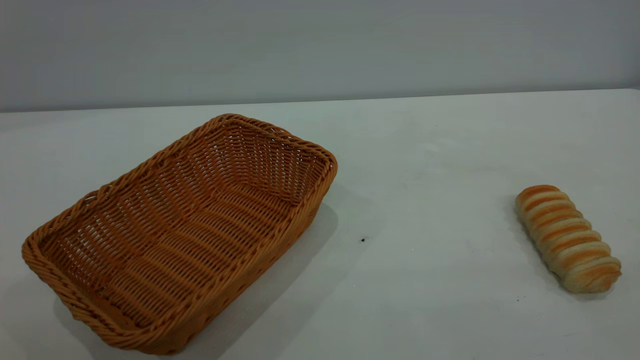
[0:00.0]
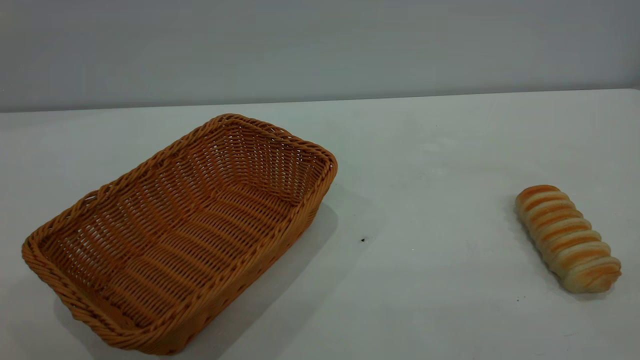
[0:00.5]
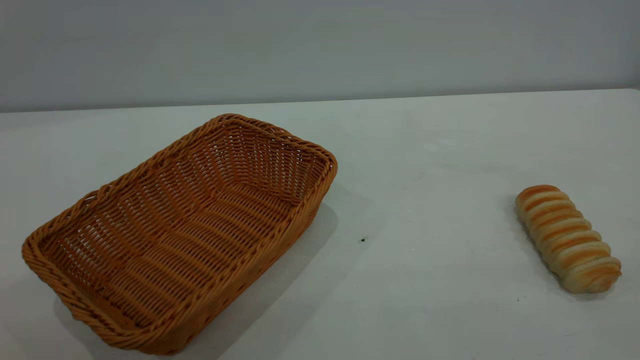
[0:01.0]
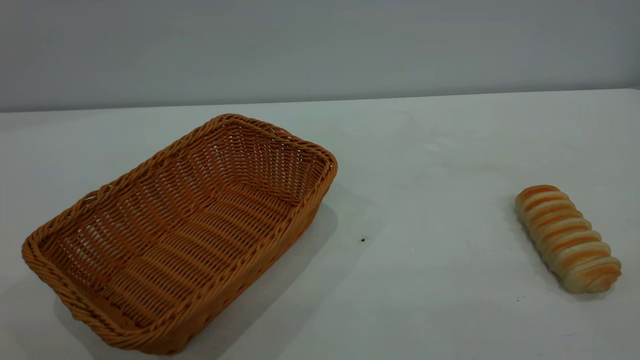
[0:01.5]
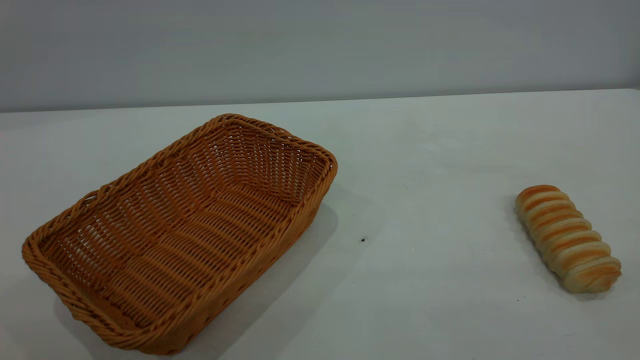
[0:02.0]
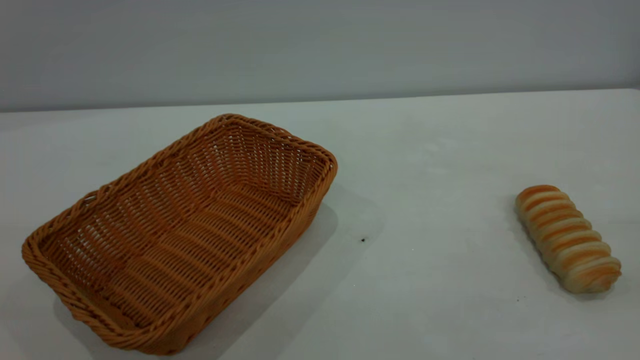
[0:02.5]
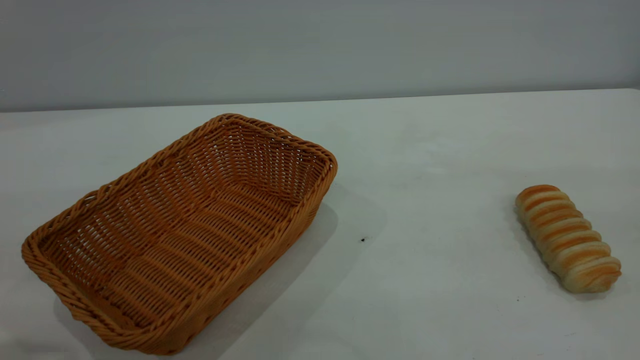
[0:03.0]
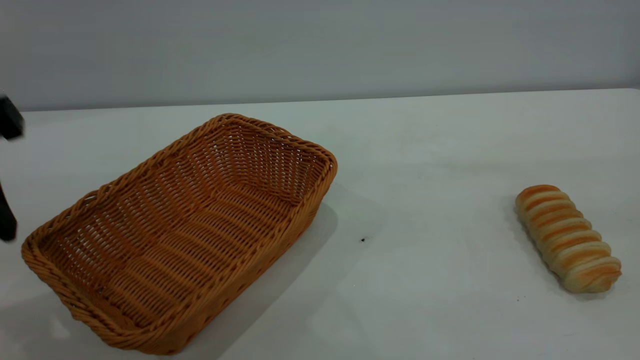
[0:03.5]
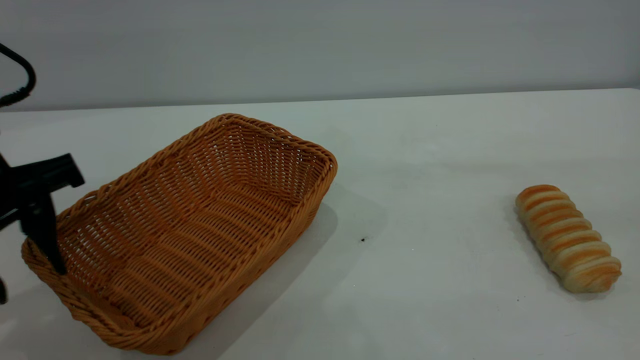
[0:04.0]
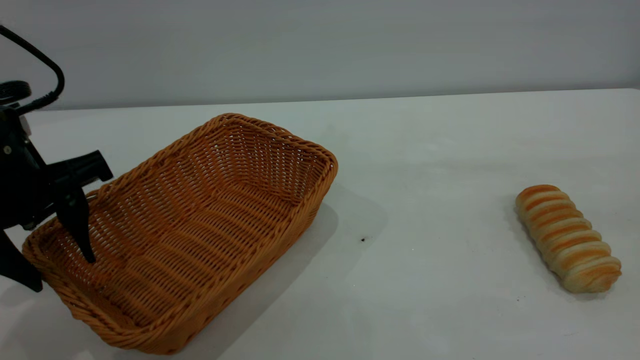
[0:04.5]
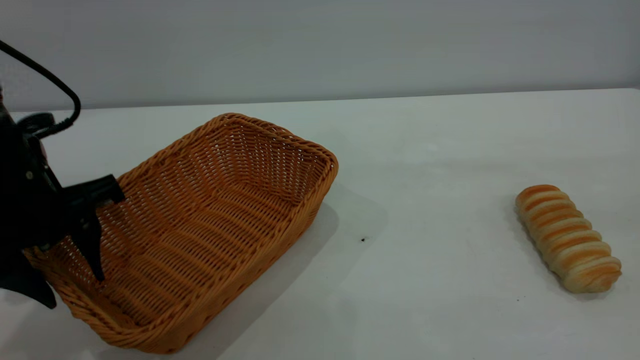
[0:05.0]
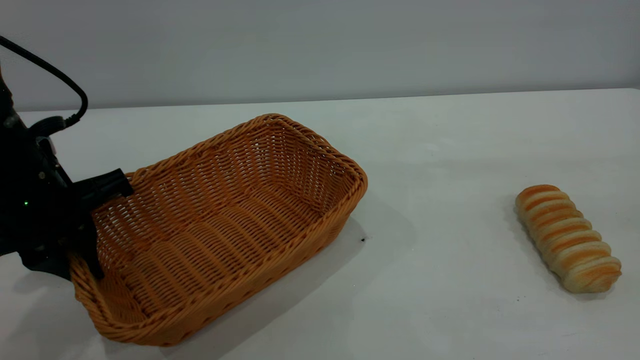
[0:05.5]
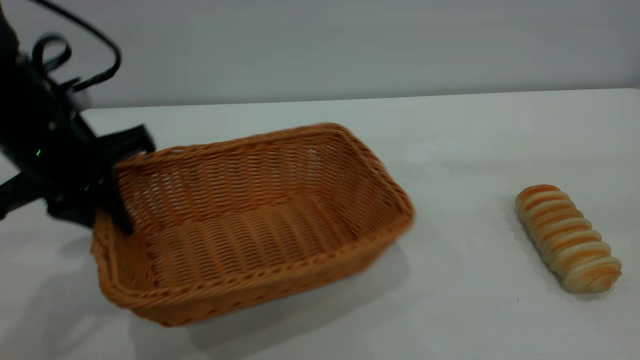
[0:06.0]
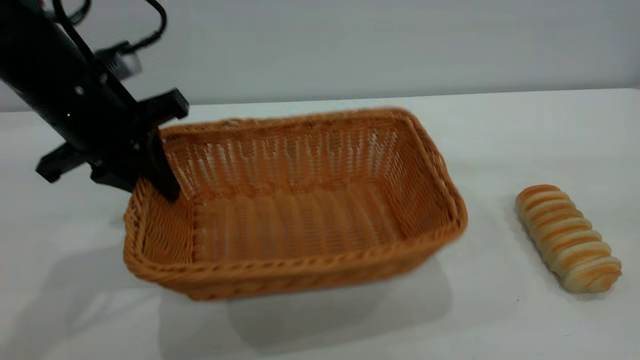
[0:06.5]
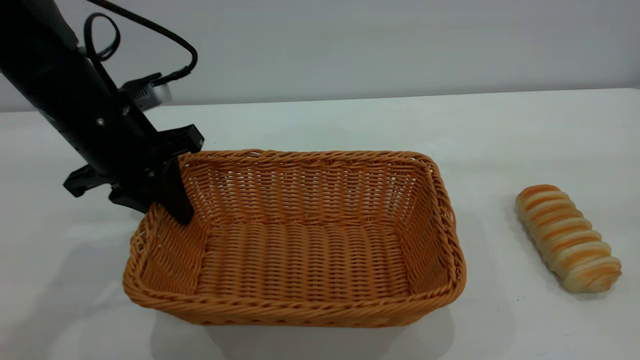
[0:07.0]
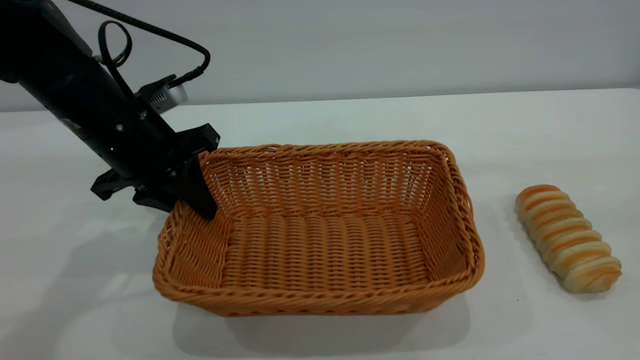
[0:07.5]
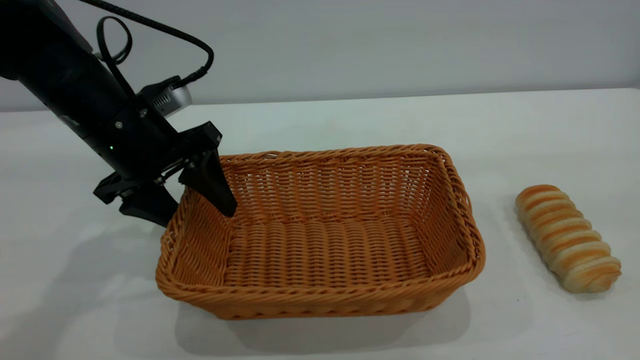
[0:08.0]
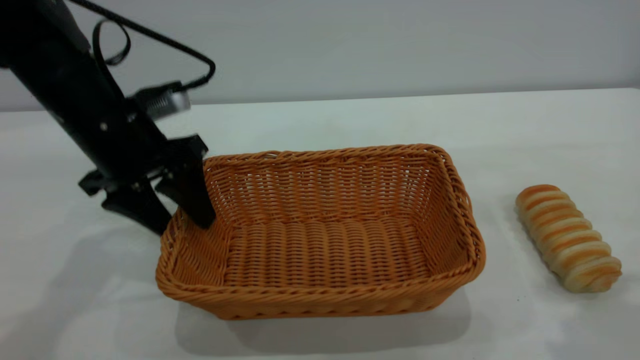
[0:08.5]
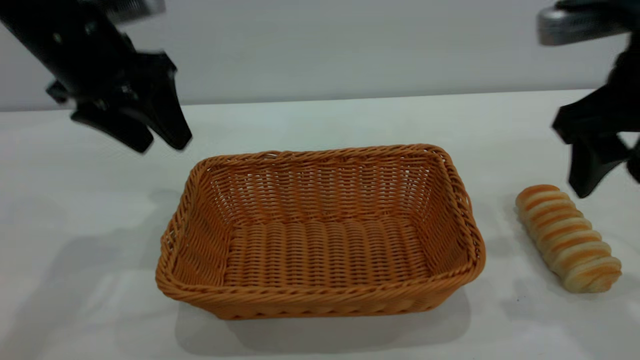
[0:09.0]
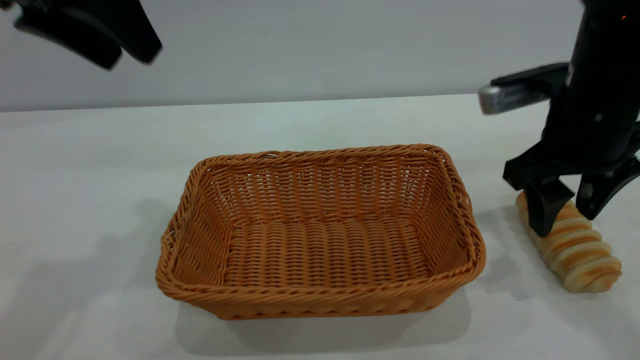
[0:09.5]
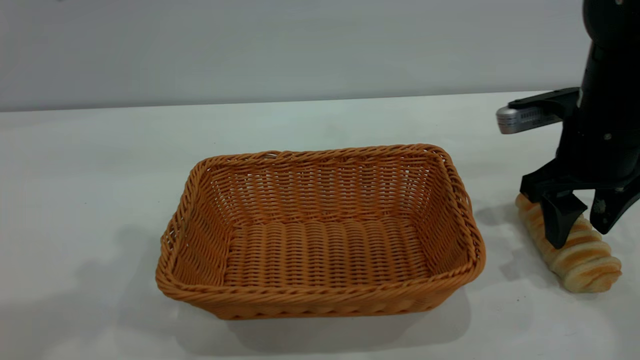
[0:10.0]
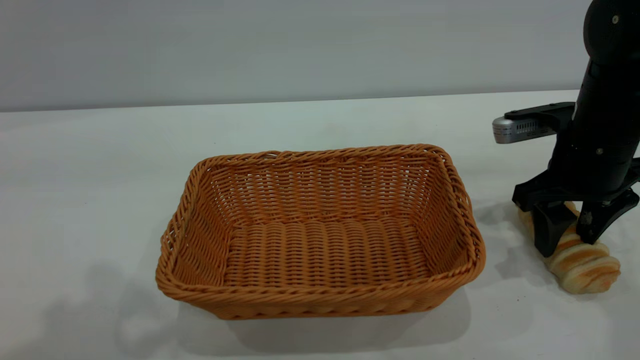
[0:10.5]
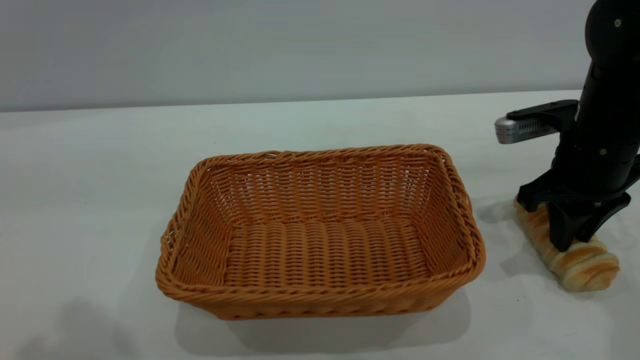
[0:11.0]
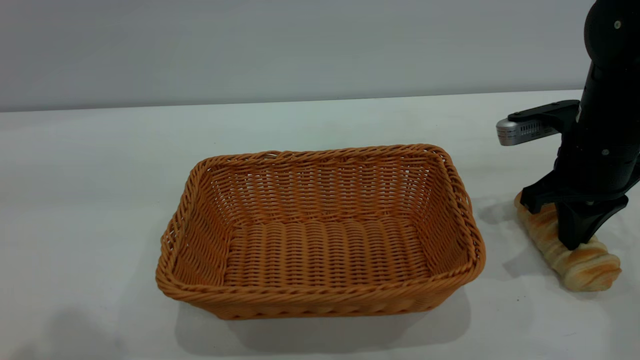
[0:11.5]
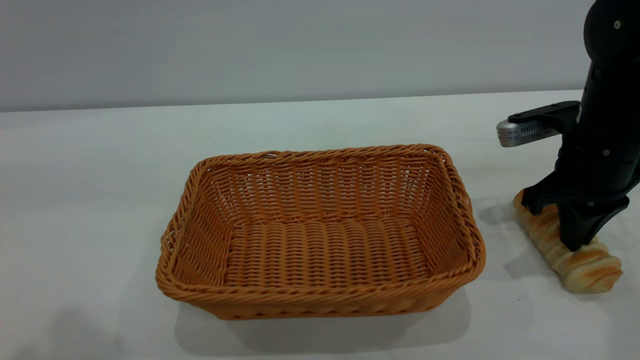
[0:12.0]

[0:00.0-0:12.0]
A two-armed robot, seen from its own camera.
Task of the whole recording: One hand grasps the yellow basket and places it in the middle of the table, while the other hand picks up the long bread and puts it into the yellow basket.
Step, 0:00.0 to 0:08.5: Move the basket to the center of view.
0:02.0 to 0:04.0: The left gripper goes about 30 cm forward and downward.
0:04.0 to 0:06.0: The left gripper heads forward, covering approximately 5 cm, and closes up.
0:06.0 to 0:08.0: The left gripper changes place by approximately 5 cm, and opens its fingers.
0:08.0 to 0:10.0: The left gripper heads upward, covering approximately 25 cm, while the right gripper heads downward and forward, covering approximately 30 cm.
0:10.0 to 0:12.0: The right gripper closes its fingers.

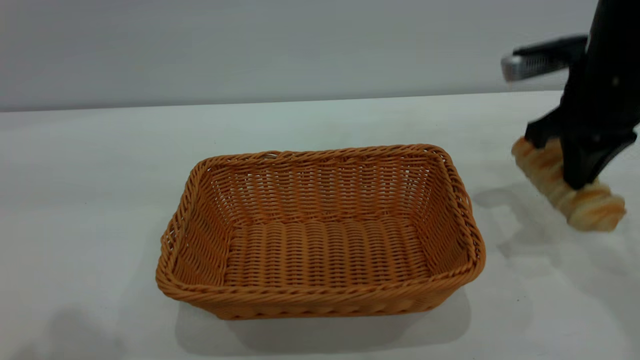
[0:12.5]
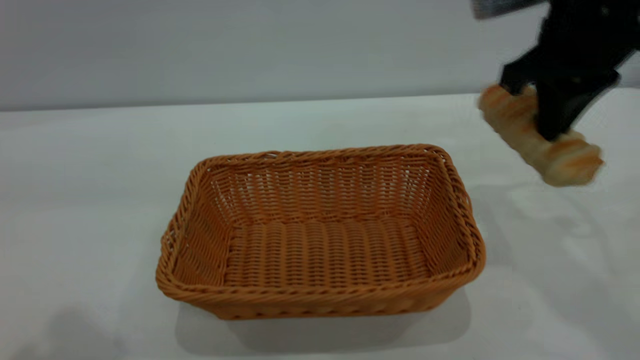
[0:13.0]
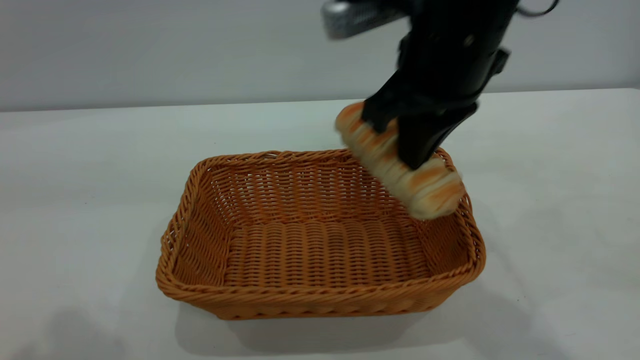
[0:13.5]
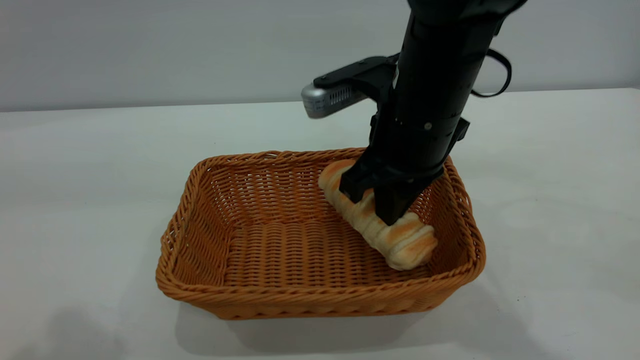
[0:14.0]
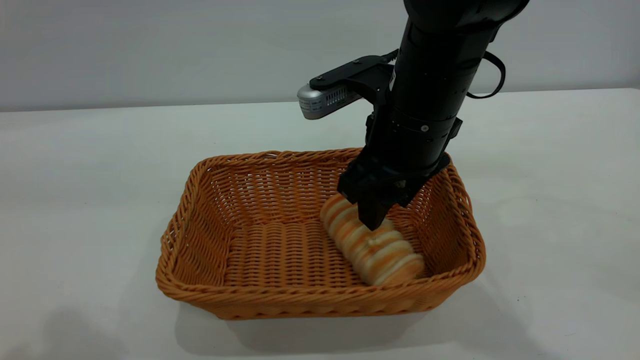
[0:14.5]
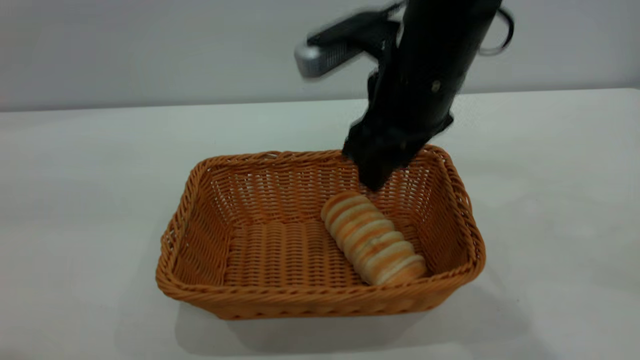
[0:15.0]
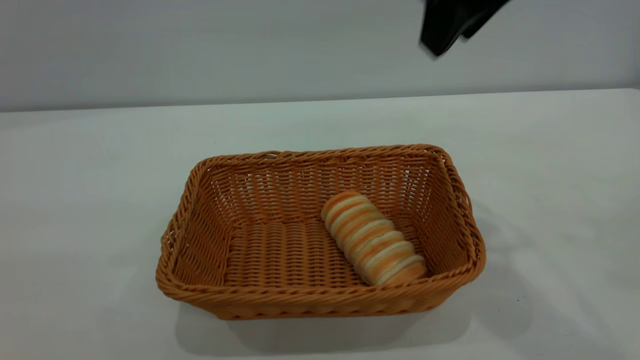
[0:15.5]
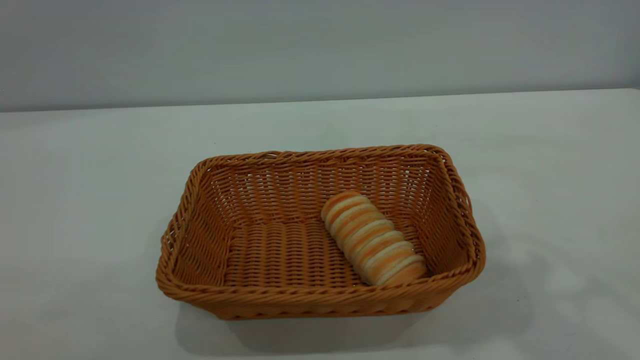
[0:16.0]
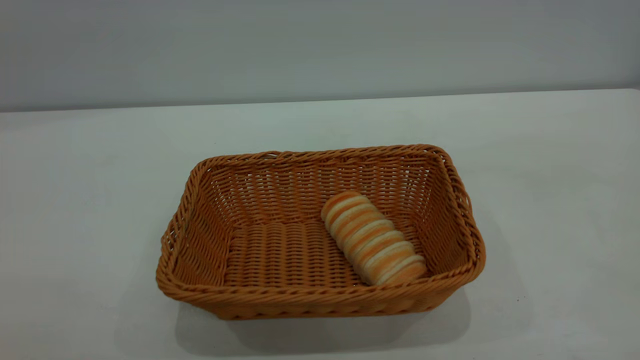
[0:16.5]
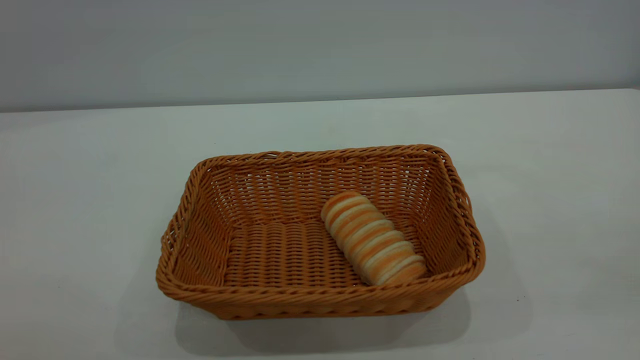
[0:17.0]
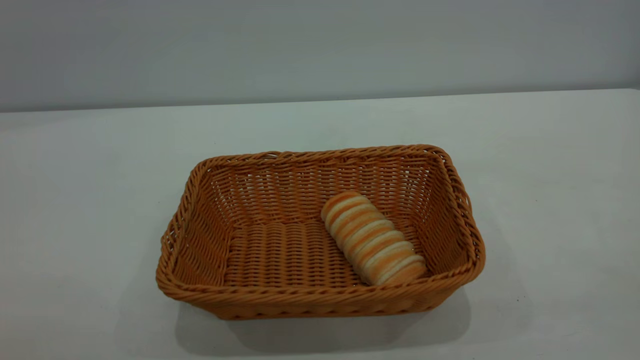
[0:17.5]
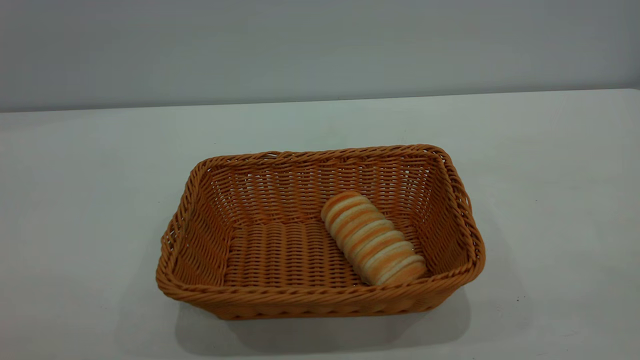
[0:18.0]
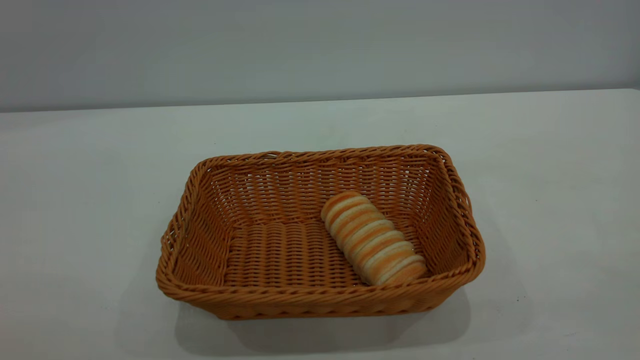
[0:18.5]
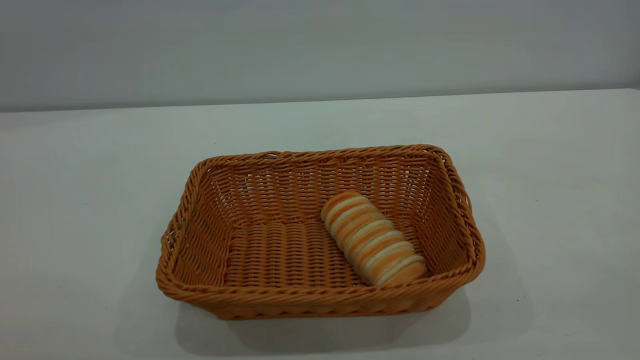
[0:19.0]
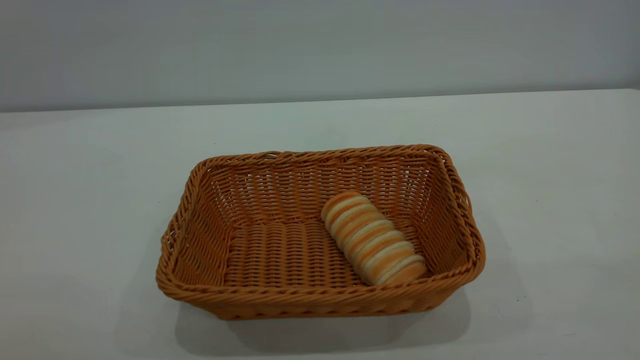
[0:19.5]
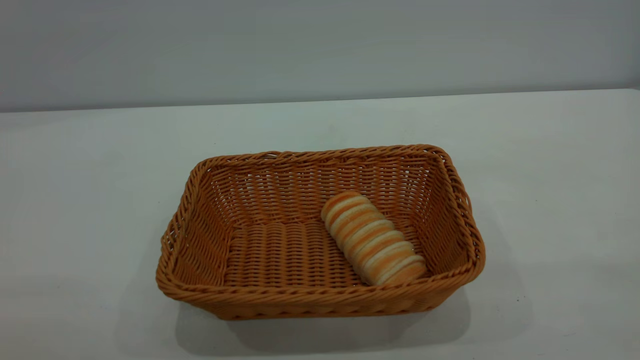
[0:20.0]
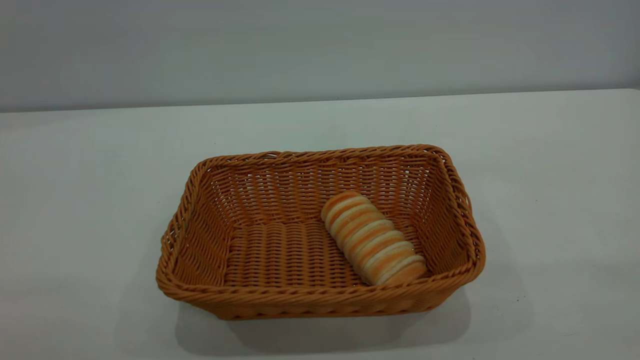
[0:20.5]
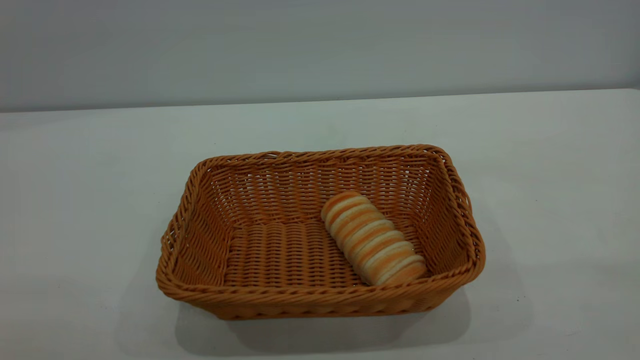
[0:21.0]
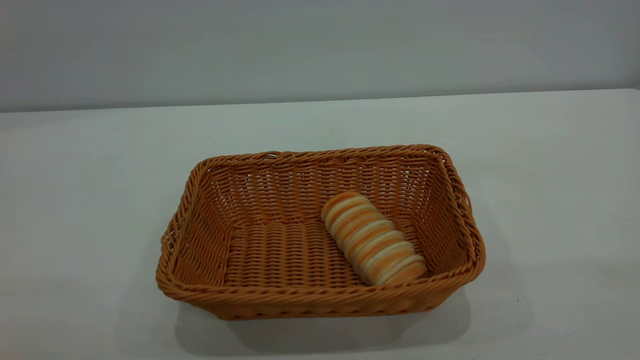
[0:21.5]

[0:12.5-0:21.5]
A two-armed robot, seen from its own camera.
Task of the whole recording: One hand grasps the yellow basket and places it in the middle of the table, while the other hand picks up the long bread and puts it into the yellow basket.
Step, 0:13.0 to 0:15.0: place the bread into the basket.
0:12.5 to 0:14.5: The right gripper shifts some 15 cm to the left, and opens its fingers.
0:14.5 to 0:17.0: The right gripper moves backward, upward and to the right, about 40 cm. Meanwhile the left gripper heads backward, covering some 20 cm.
